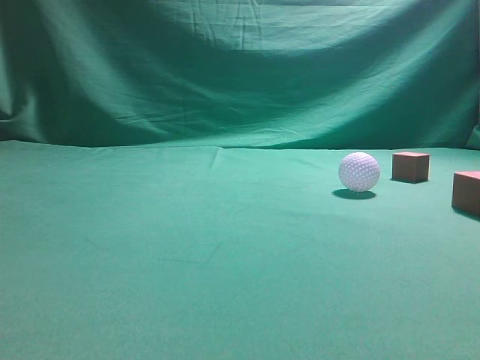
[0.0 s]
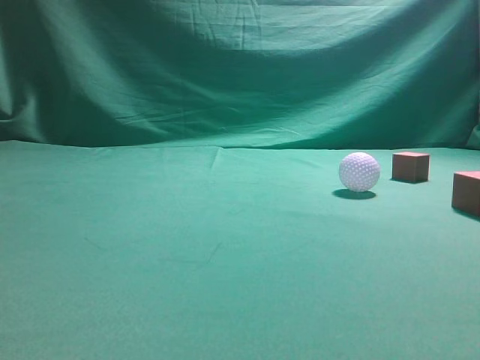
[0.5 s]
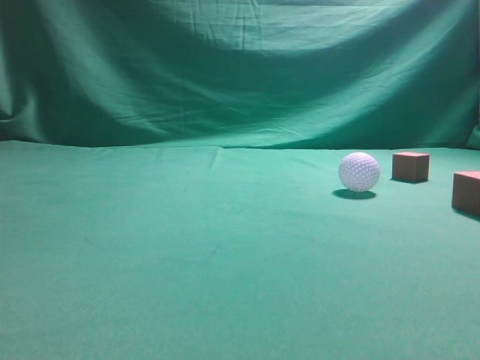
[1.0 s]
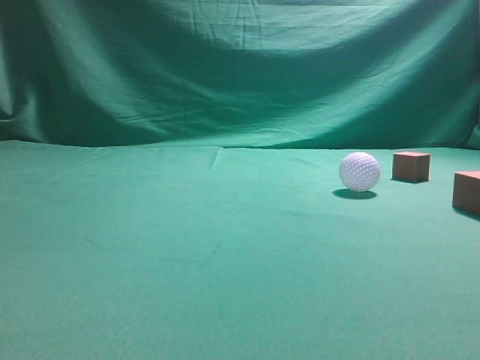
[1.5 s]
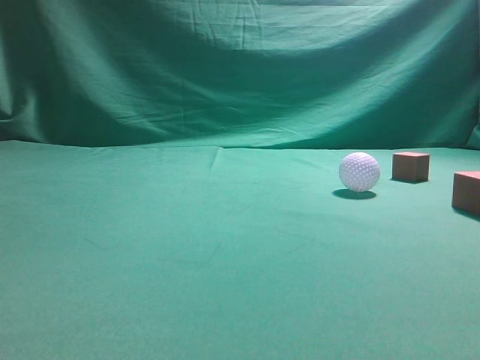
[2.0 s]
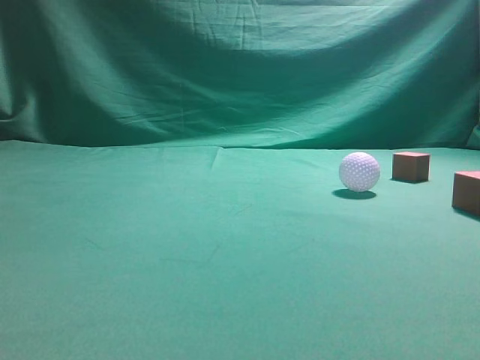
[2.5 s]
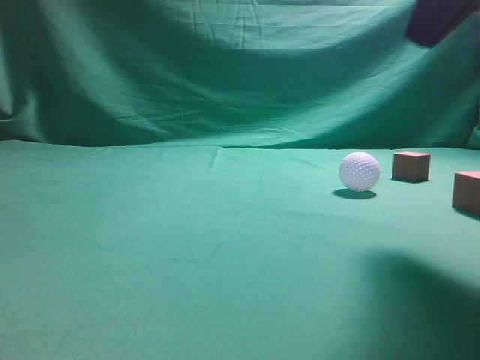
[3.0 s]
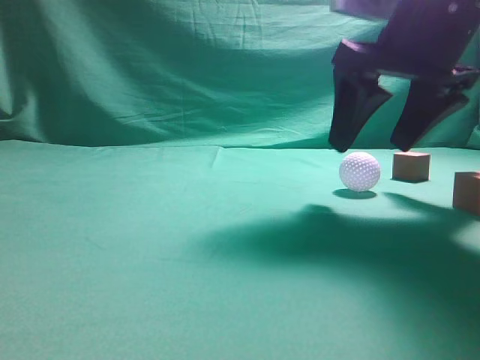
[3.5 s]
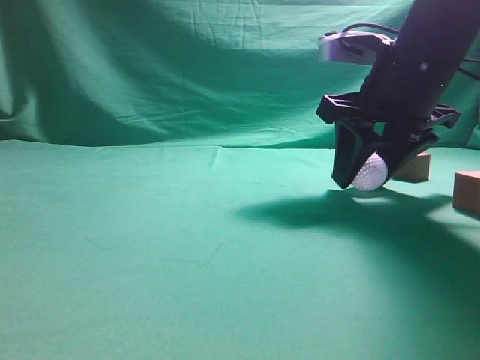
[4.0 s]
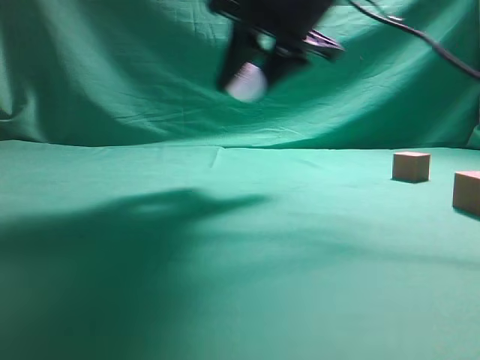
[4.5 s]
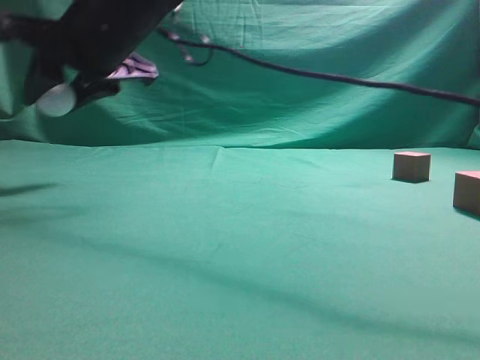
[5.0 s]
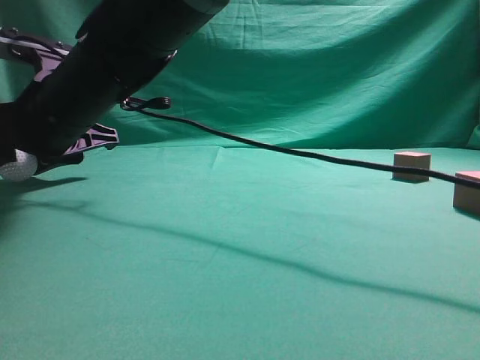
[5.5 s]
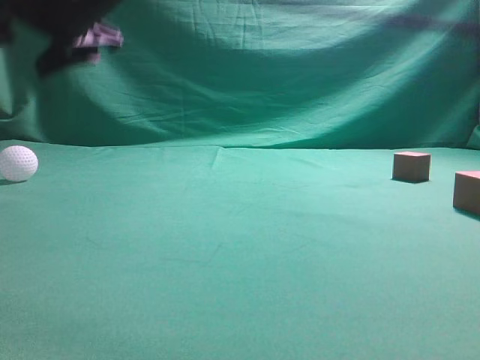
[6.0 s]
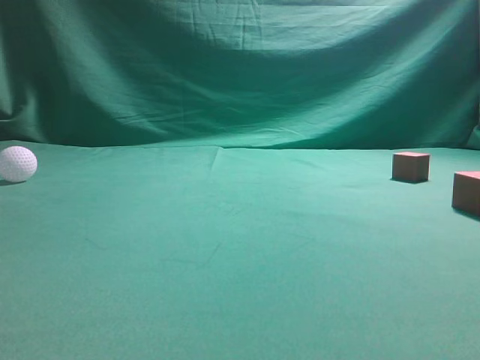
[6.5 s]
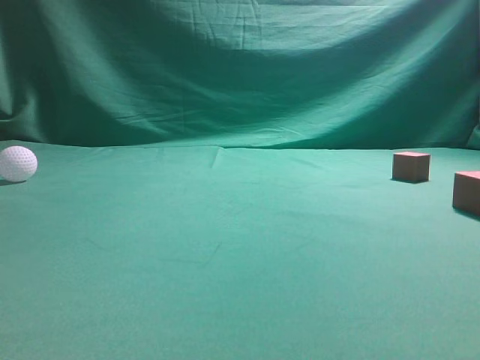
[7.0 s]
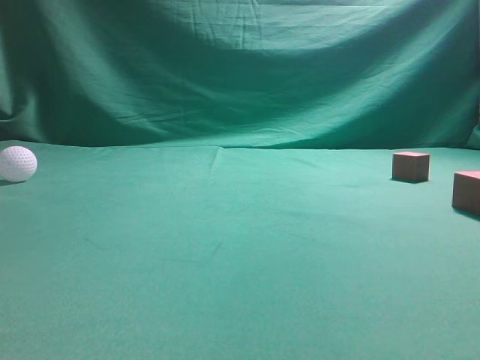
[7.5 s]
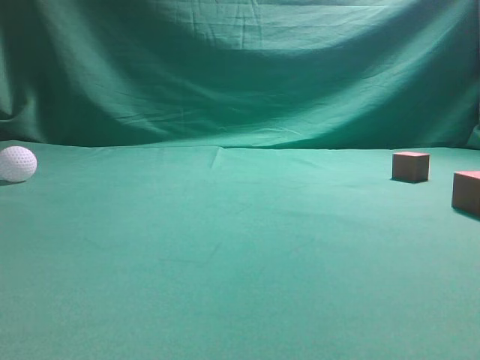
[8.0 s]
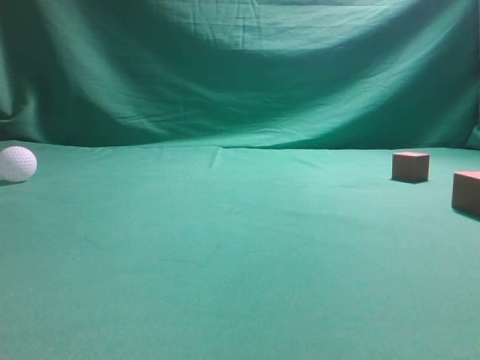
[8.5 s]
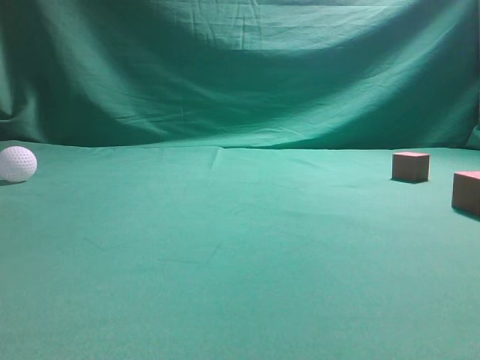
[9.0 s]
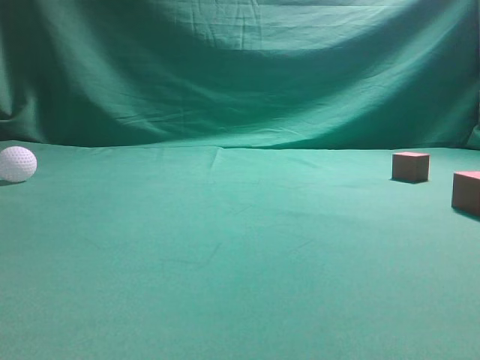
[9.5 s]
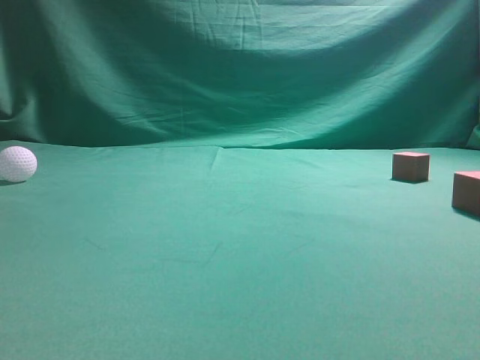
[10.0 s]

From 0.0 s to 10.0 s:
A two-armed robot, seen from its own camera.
Step, from 0.0 s to 3.5 s: Grasp the spherical object on the right side.
From 2.0 s to 4.0 s: The right gripper moves forward, downward and to the left, about 35 cm, and opens its fingers.
From 4.0 s to 6.0 s: The right gripper travels to the left by some 30 cm.
From 6.0 s to 8.0 s: The right gripper heads to the right, backward and upward, covering roughly 50 cm, and closes.
